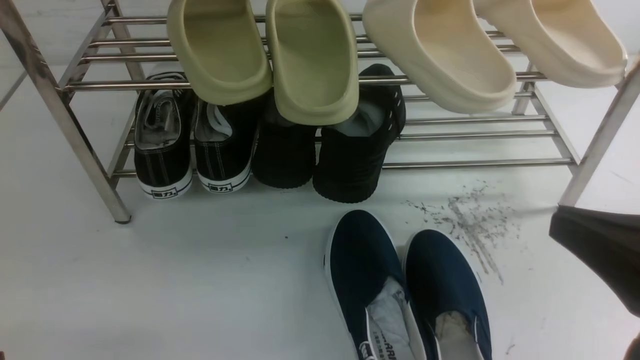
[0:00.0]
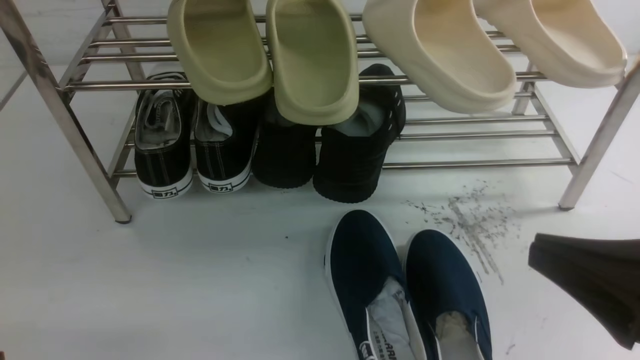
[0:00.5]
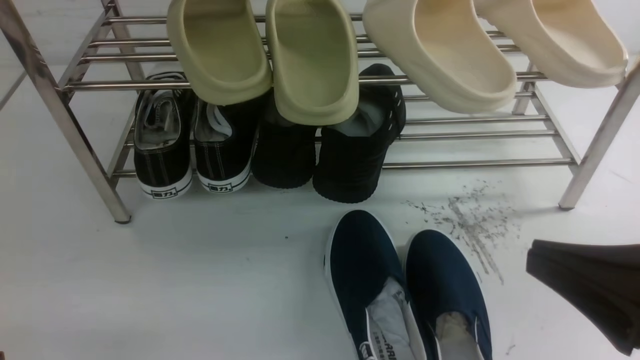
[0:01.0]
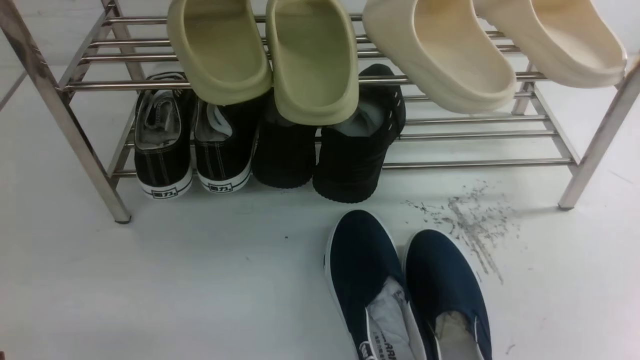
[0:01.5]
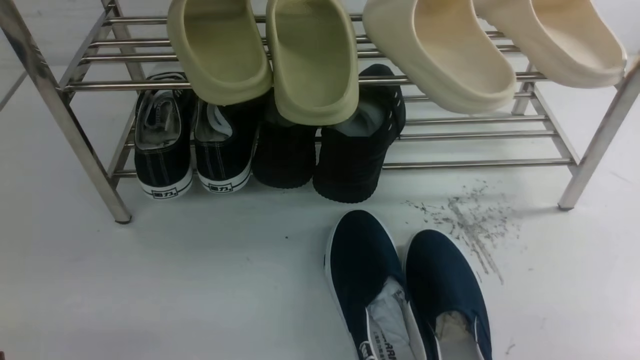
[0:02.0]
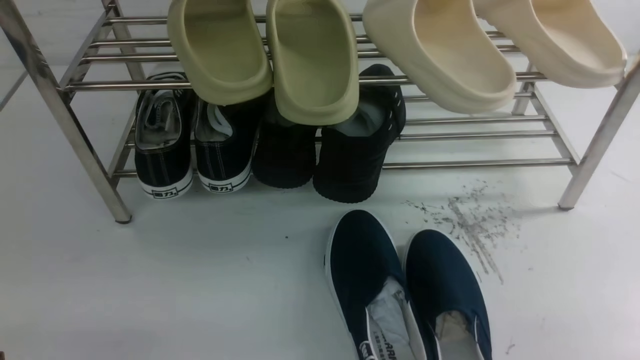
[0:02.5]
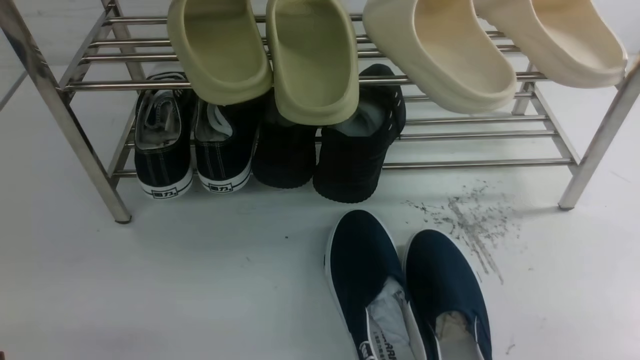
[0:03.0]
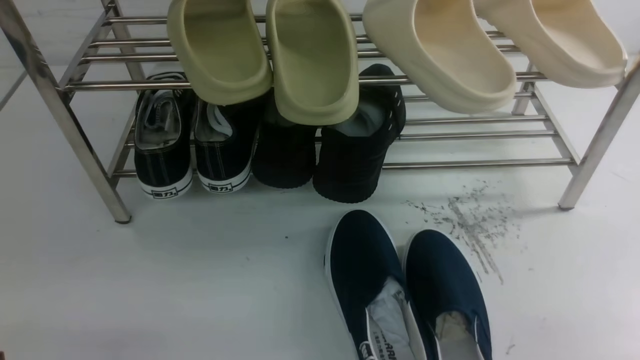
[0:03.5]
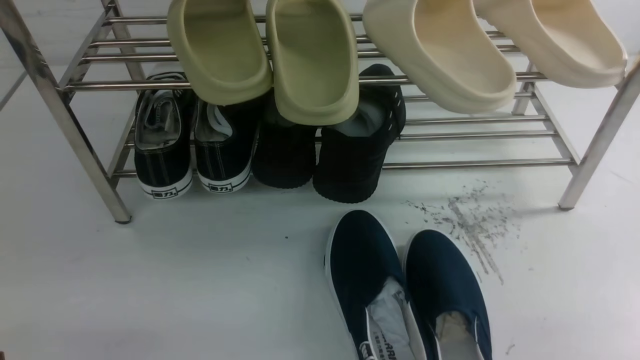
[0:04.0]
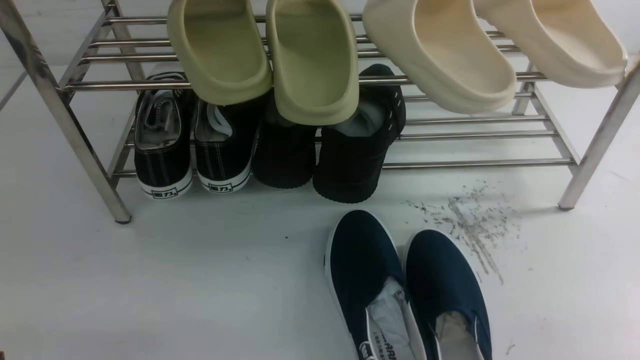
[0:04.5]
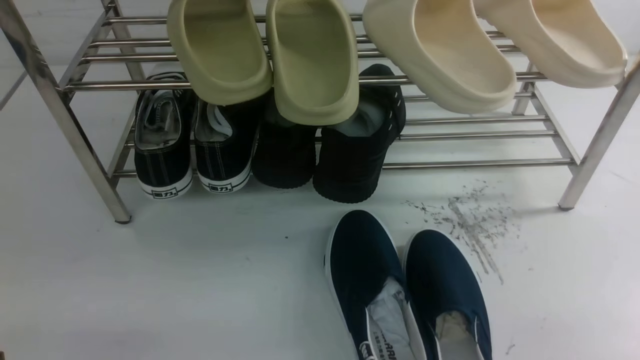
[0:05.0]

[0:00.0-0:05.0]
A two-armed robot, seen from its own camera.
0:00.0 to 0:02.5: The right gripper goes some 15 cm downward and to the right.
0:02.5 to 0:05.0: Both grippers stay about where they are.

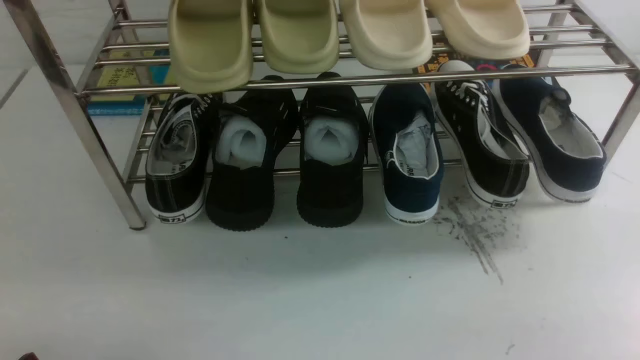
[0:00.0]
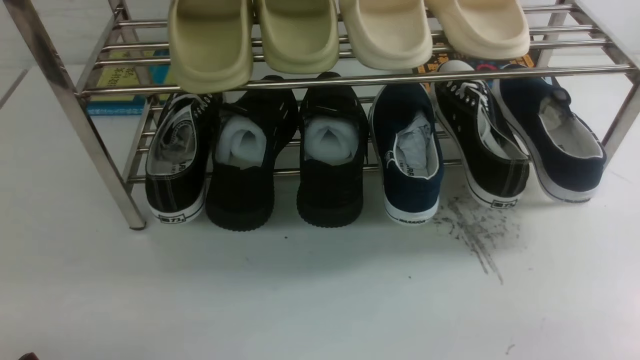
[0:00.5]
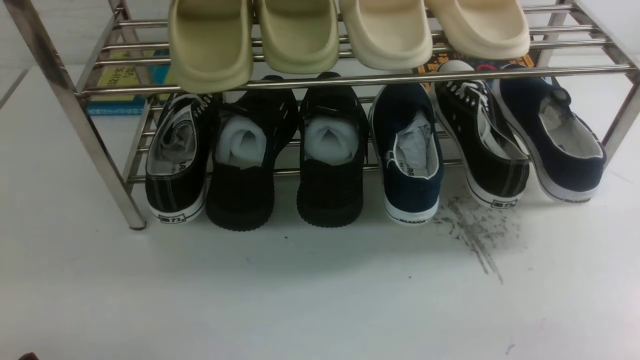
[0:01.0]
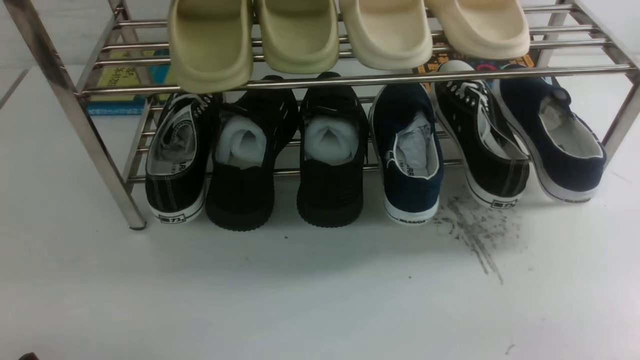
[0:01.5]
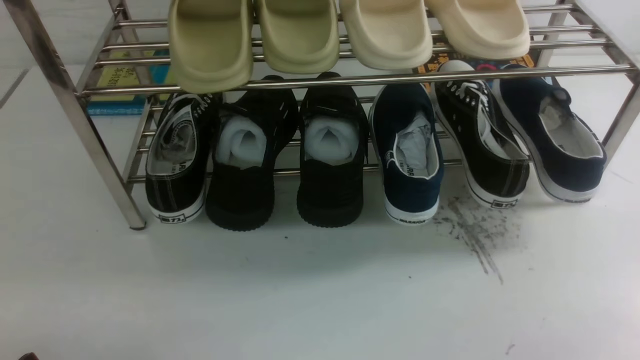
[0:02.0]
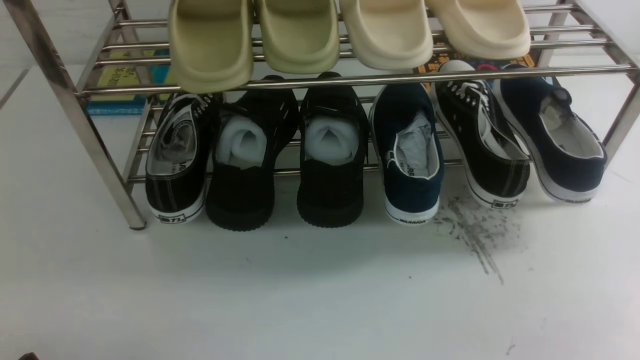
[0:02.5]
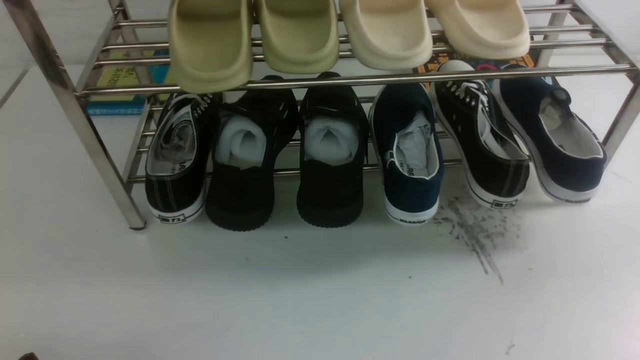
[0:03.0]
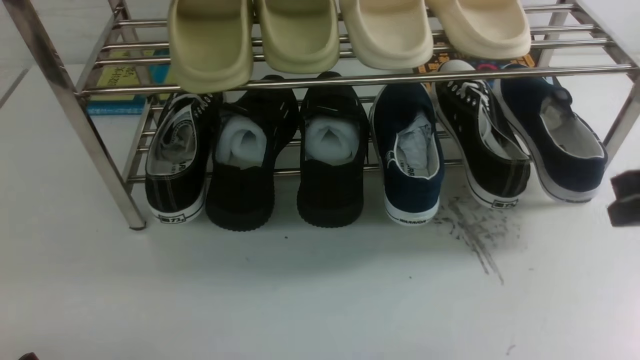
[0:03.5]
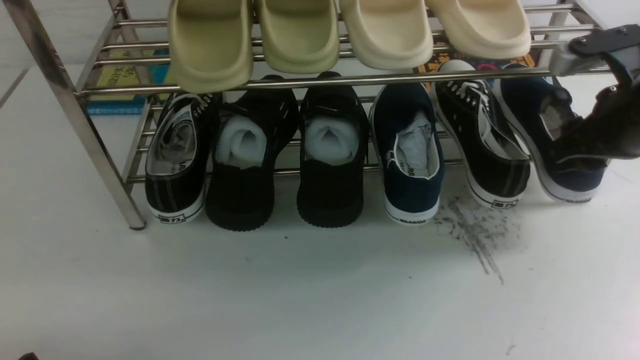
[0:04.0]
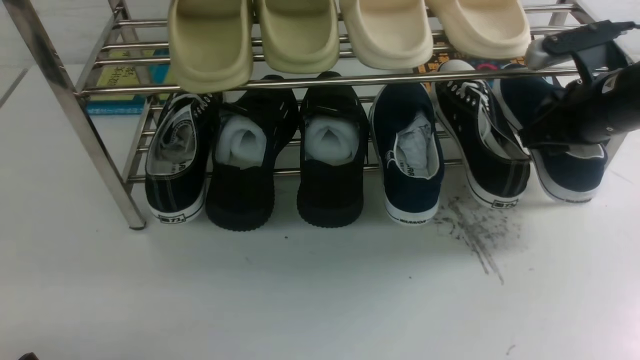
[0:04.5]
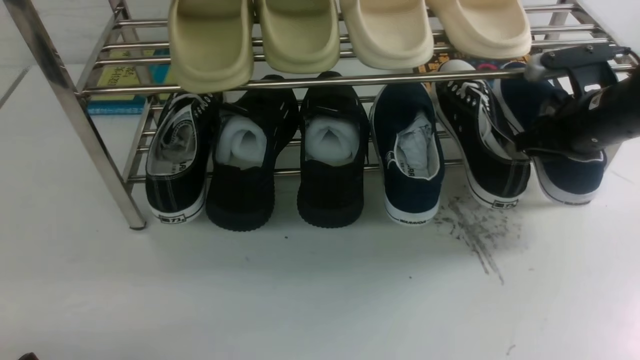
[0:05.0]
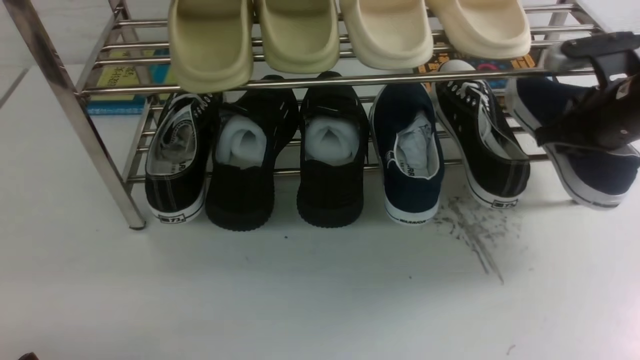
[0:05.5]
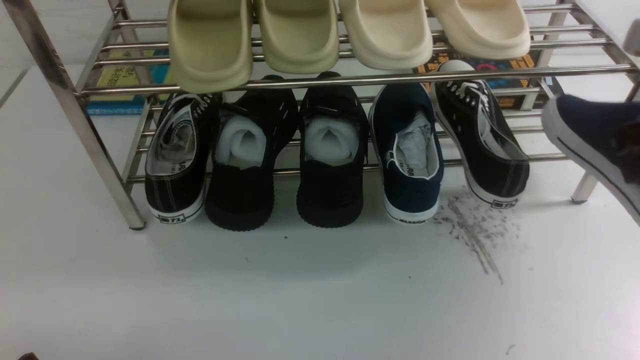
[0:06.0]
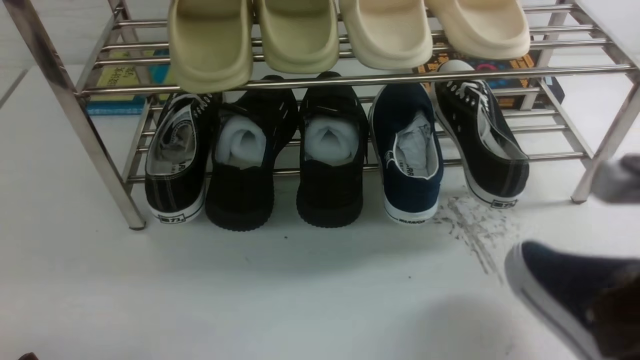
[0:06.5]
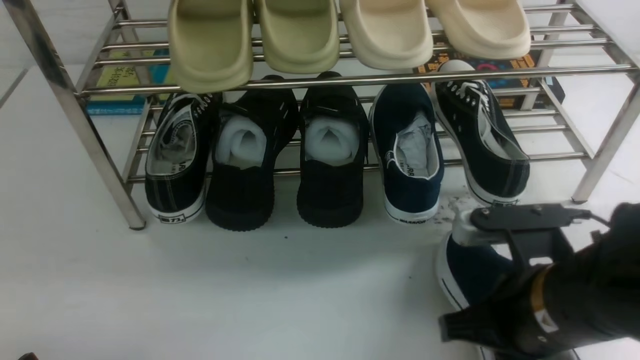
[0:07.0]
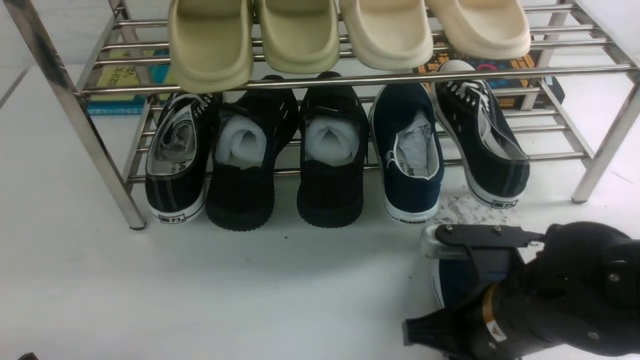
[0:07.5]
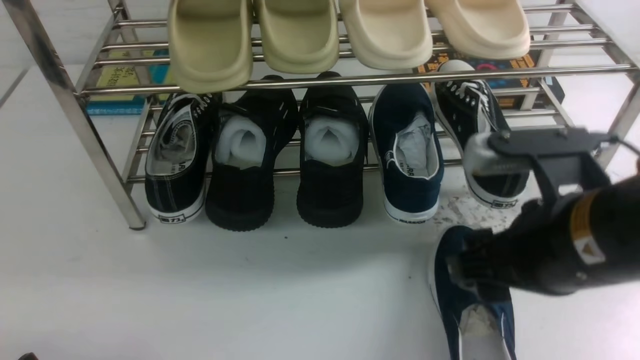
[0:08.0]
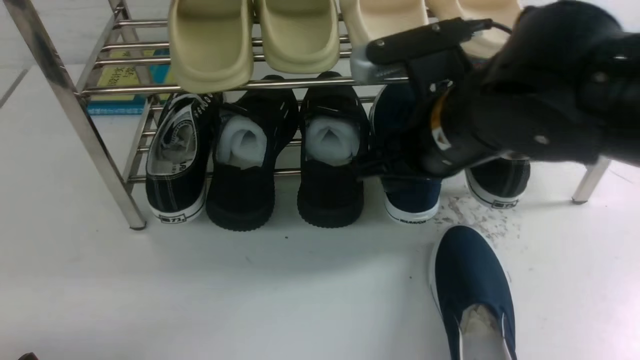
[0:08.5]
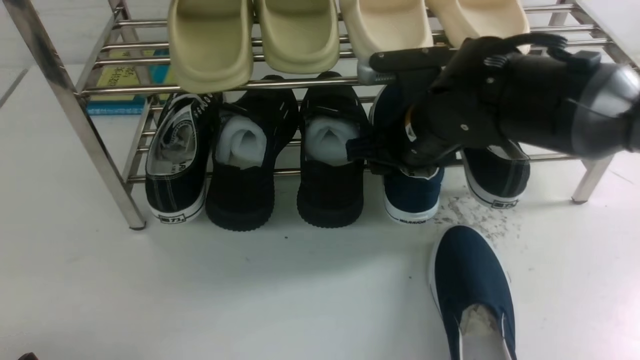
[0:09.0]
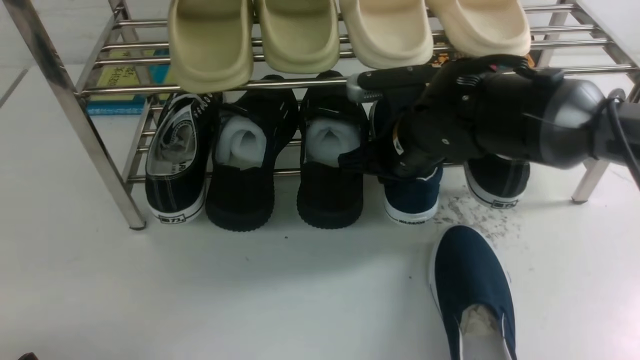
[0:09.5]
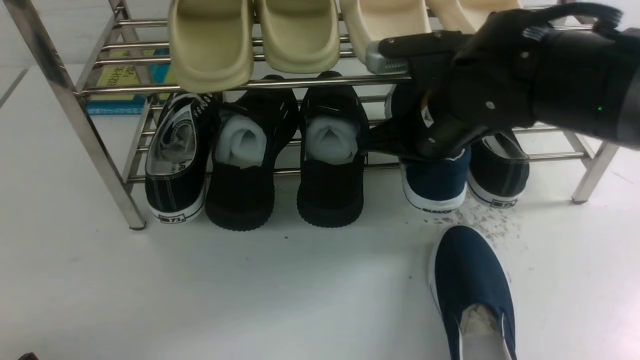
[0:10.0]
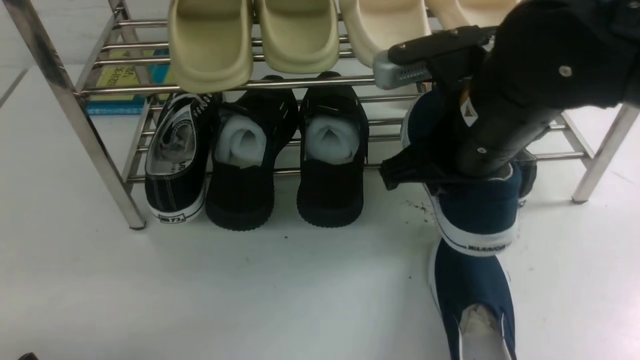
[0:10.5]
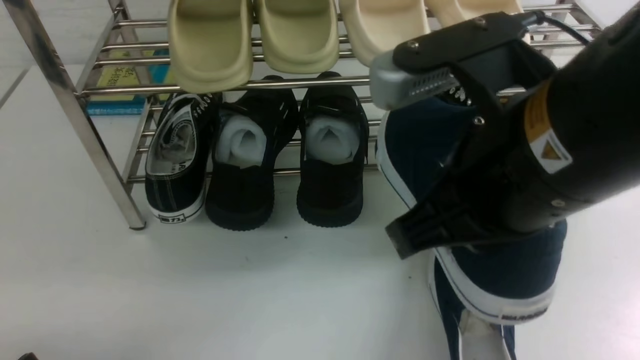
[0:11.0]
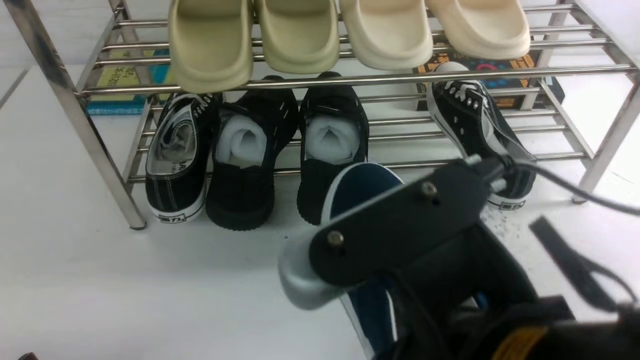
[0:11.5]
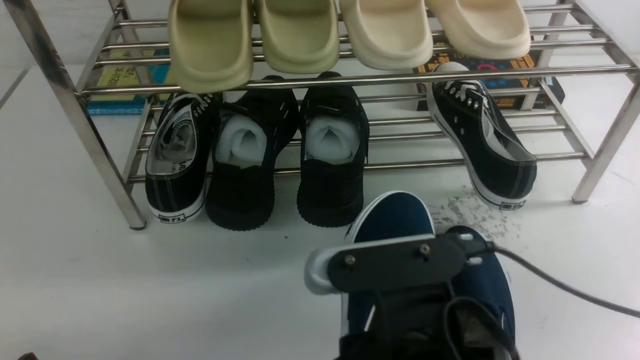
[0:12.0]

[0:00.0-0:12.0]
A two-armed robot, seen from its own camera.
Step, 0:00.0 to 0:05.5: use the right arm to clamp a shoe on the right side of the shoe rack.
Step, 0:06.0 to 0:07.5: use the right arm to take out the clamped shoe from the shoe rack and put it down.
Step, 0:08.0 to 0:10.0: use the right arm to clamp a shoe in the middle of the shoe rack.
0:02.0 to 0:04.0: The right gripper goes roughly 30 cm forward and upward, and closes, then reopens.
0:04.0 to 0:06.0: The right gripper is displaced backward by approximately 5 cm, and closes its fingers.
0:06.0 to 0:08.0: The right gripper travels to the left and backward by approximately 15 cm, and opens up.
0:08.0 to 0:10.0: The right gripper shifts approximately 15 cm forward, and closes its fingers.
0:10.0 to 0:12.0: The right gripper is displaced backward by some 25 cm.

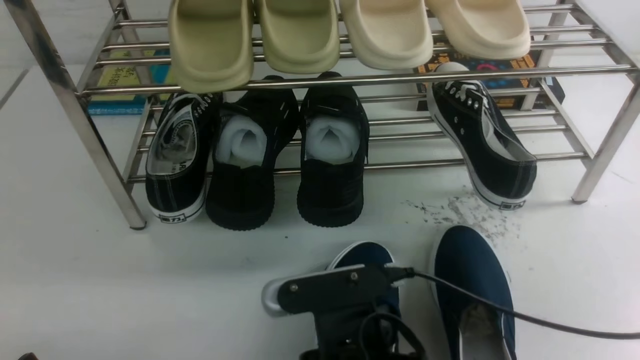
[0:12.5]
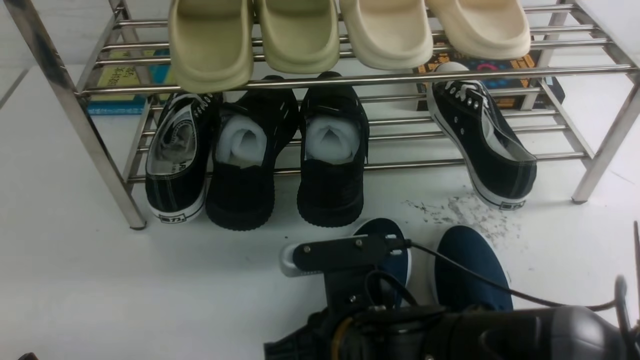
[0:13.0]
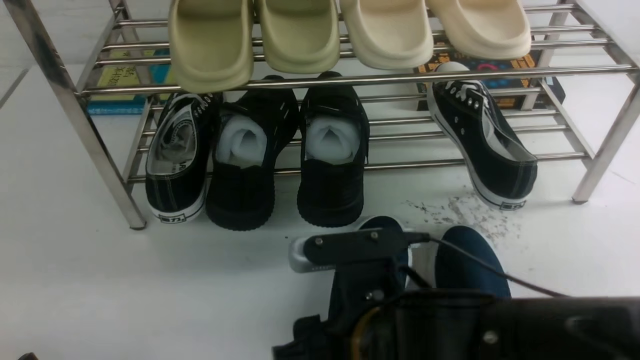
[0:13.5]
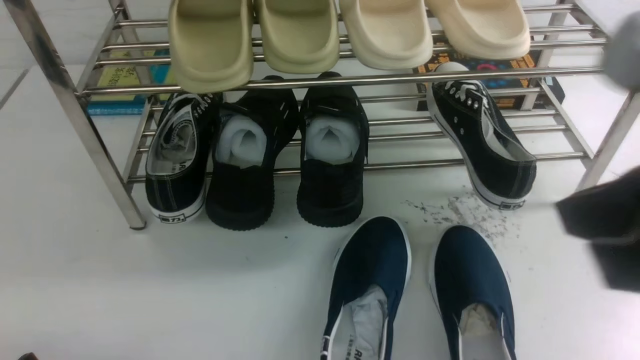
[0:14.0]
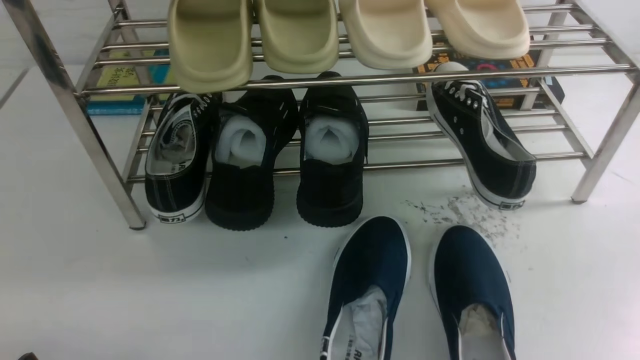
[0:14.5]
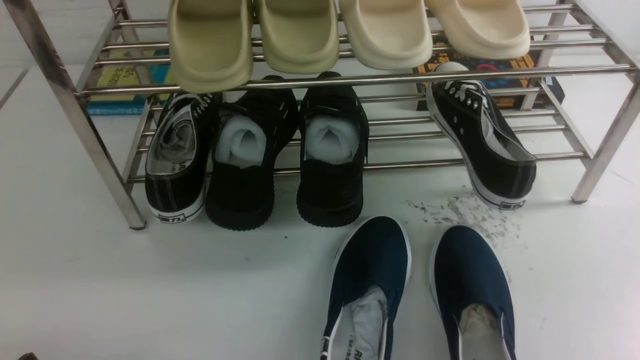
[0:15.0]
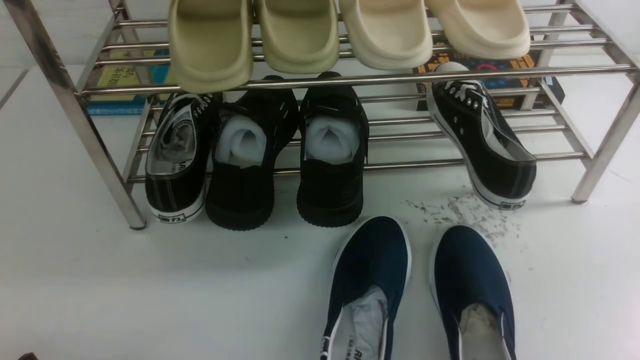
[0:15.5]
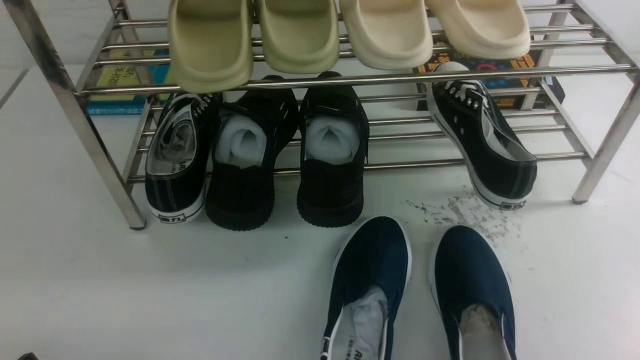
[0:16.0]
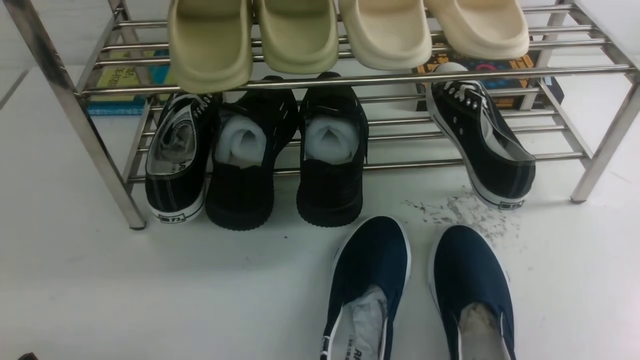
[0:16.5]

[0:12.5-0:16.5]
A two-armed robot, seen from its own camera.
0:12.5 to 0:14.5: The right gripper shifts approximately 35 cm to the right and upward, and opens and closes again.
